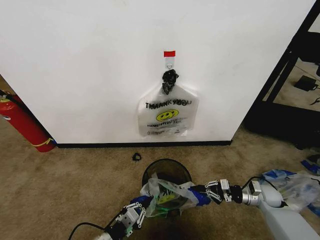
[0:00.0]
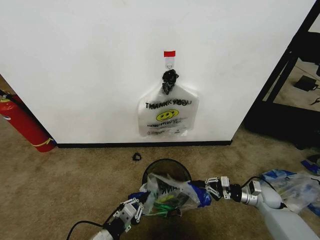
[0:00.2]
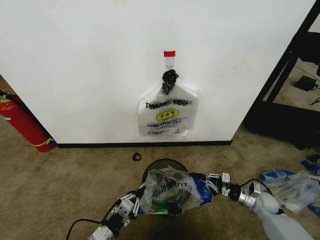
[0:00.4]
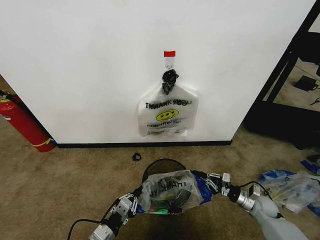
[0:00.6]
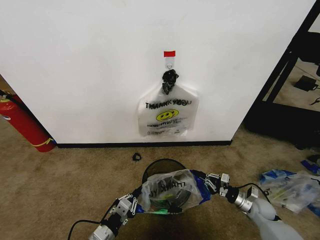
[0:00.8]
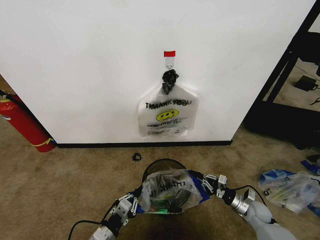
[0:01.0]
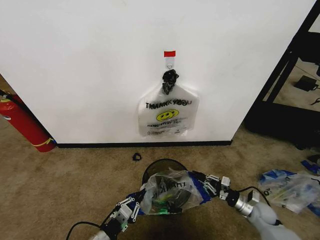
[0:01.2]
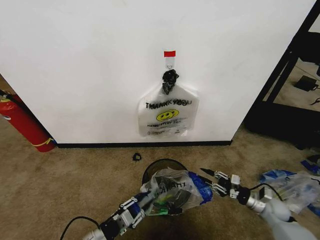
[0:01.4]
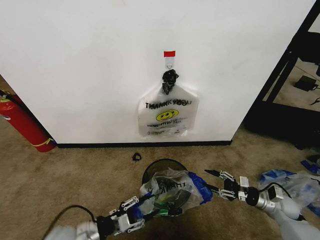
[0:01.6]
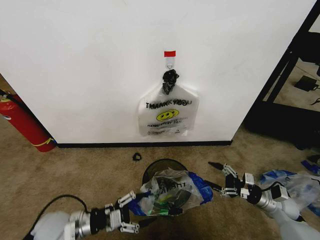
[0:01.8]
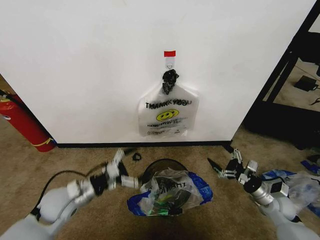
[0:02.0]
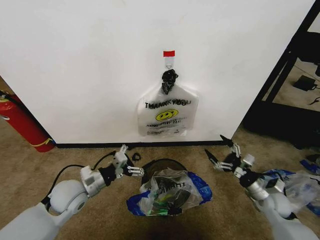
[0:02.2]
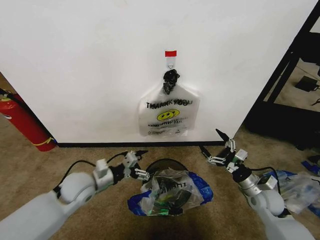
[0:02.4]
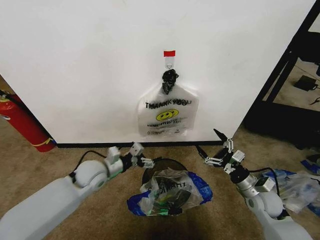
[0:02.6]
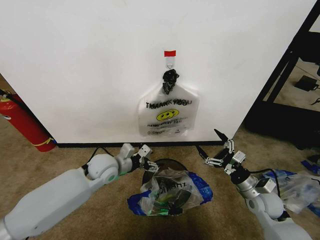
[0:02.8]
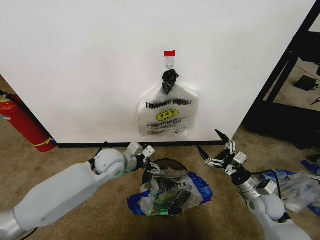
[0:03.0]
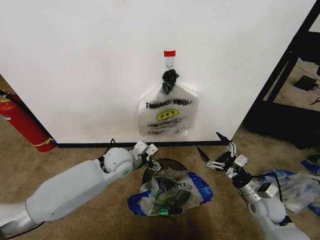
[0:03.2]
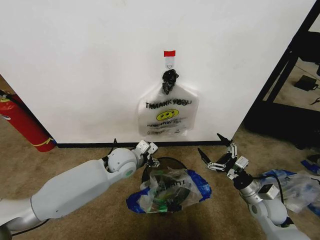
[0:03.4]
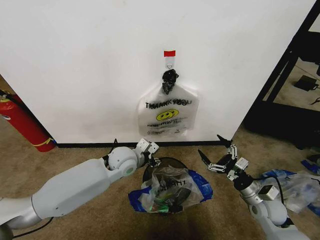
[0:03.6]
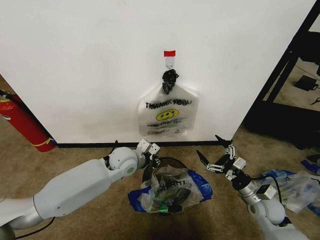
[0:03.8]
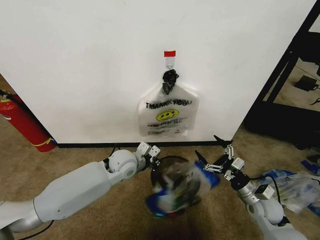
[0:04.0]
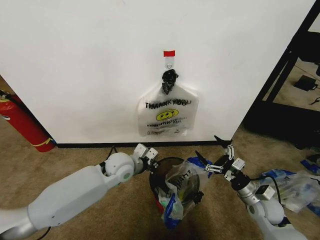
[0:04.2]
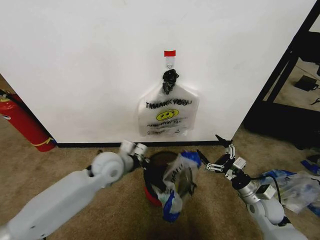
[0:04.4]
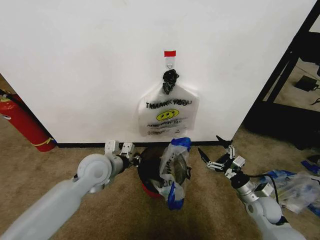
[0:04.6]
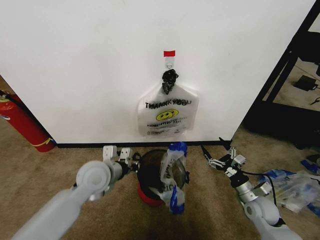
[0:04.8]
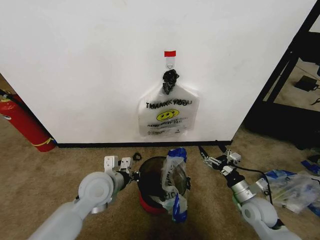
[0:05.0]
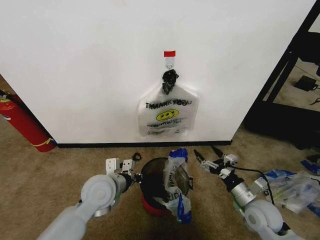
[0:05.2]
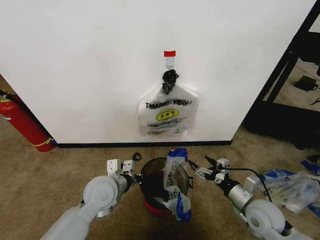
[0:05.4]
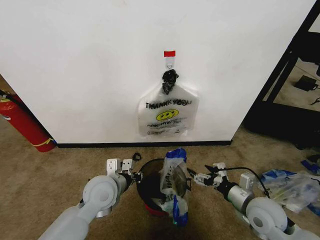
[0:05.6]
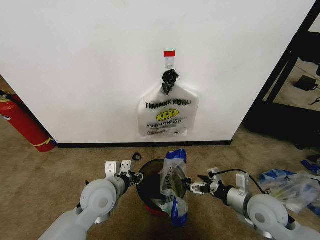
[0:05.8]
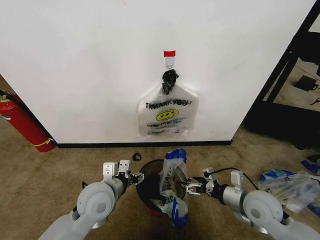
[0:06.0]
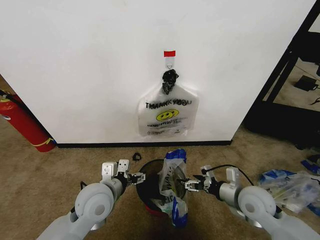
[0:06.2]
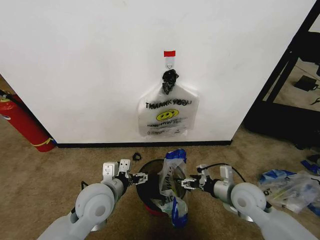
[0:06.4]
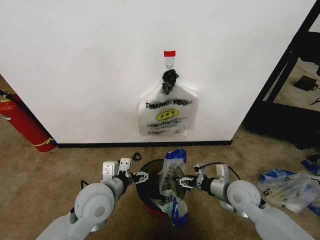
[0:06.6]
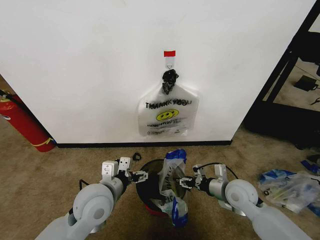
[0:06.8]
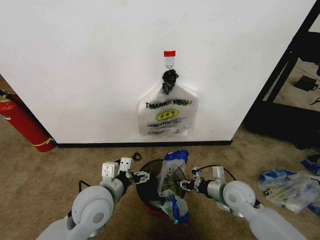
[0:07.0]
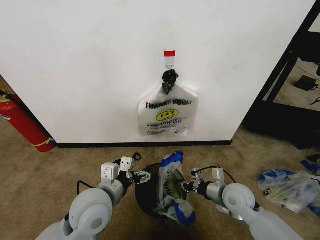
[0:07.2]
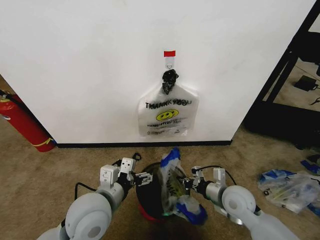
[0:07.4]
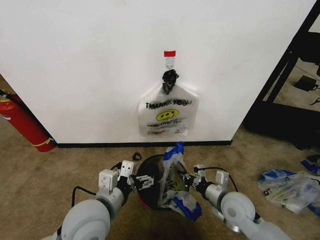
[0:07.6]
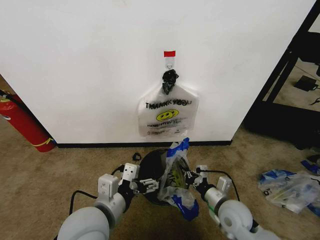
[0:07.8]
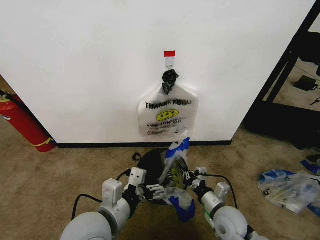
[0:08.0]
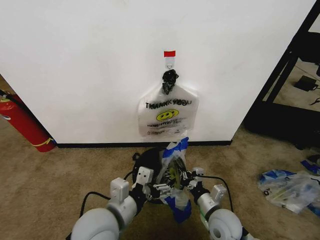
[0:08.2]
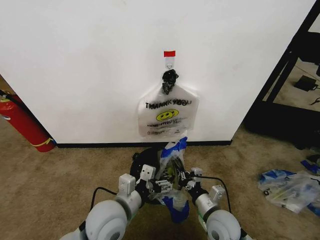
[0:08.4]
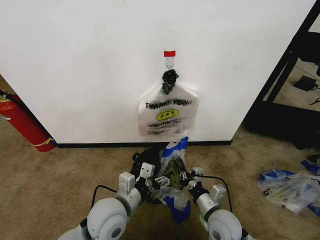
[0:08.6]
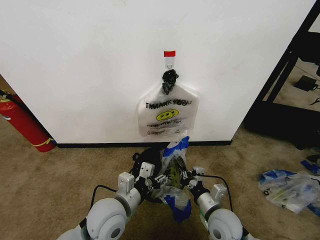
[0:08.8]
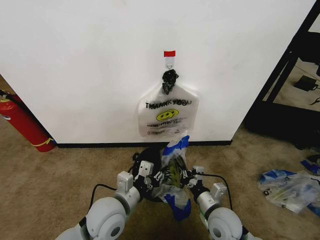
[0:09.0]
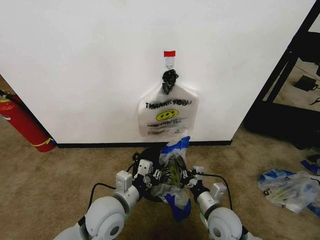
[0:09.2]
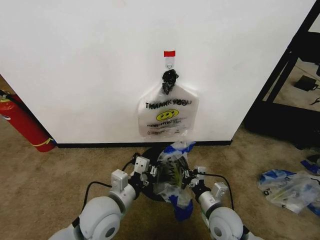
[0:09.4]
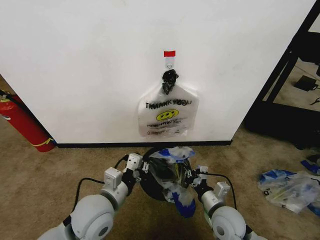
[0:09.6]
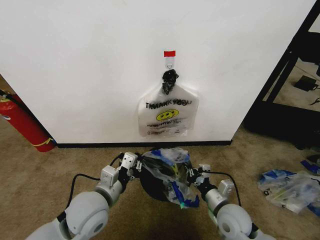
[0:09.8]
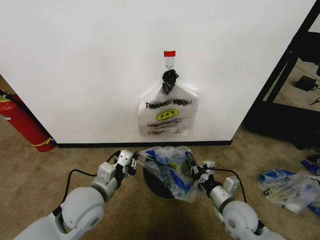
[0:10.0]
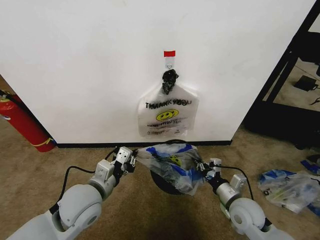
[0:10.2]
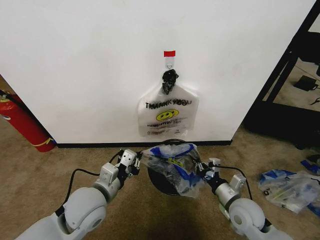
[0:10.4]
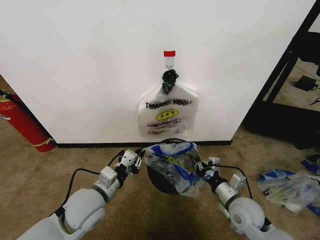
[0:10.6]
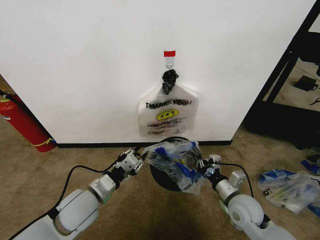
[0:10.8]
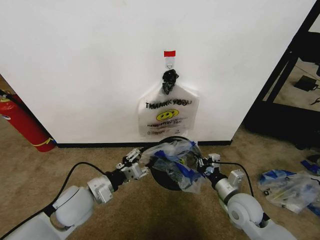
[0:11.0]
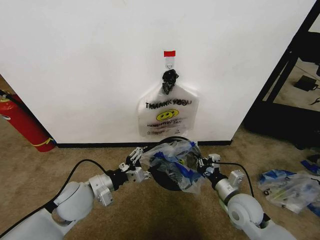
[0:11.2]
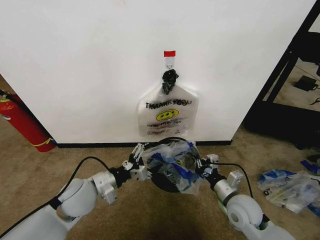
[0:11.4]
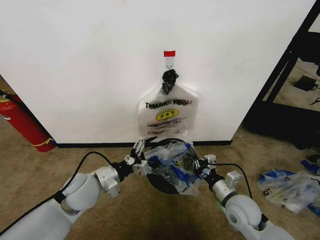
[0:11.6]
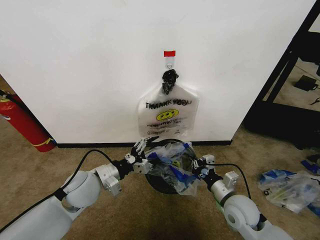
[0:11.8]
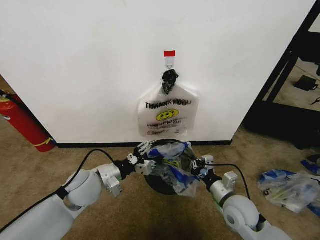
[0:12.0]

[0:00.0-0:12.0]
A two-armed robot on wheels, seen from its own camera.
Task of the whole recording: Pick up the garbage bag from the wall and place it over the trash bin.
0:00.0 to 0:01.6: The left gripper travels to the left and forward by some 10 cm, and opens. The right gripper changes place by about 5 cm, and opens.
0:01.6 to 0:03.0: The right gripper is displaced to the left and upward by some 15 cm, and opens its fingers. Meanwhile the left gripper moves forward, to the right and upward, some 25 cm, and opens.
0:03.0 to 0:04.4: The left gripper closes.
0:04.4 to 0:06.0: The left gripper heads backward, covering some 10 cm, and opens, while the right gripper is displaced upward and to the left by some 10 cm.
0:06.0 to 0:07.6: The left gripper shifts some 5 cm backward. The right gripper moves to the left, about 5 cm, and closes up.
0:07.6 to 0:09.0: The left gripper shifts approximately 5 cm downward, and closes, while the right gripper changes place by roughly 5 cm.
0:09.0 to 0:10.4: The right gripper is displaced to the right by about 5 cm; the left gripper travels to the left by some 5 cm.
0:10.4 to 0:12.0: The left gripper is displaced forward by about 5 cm, and opens up.

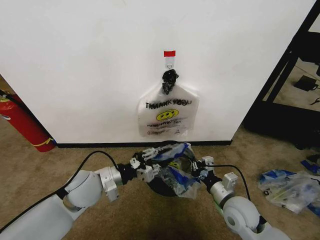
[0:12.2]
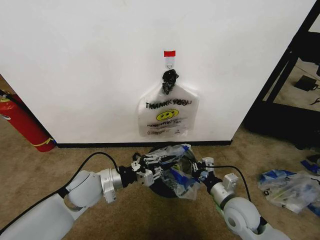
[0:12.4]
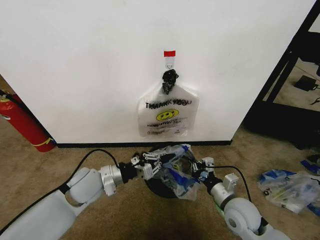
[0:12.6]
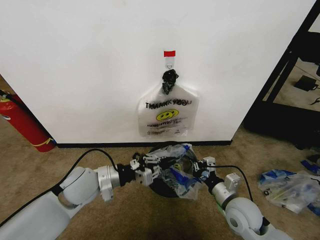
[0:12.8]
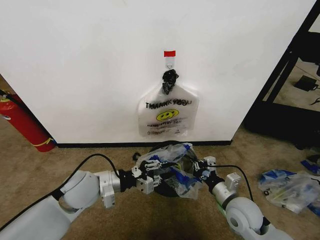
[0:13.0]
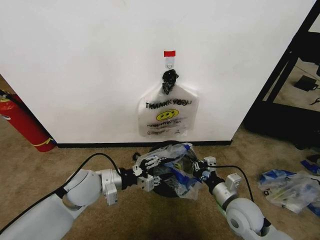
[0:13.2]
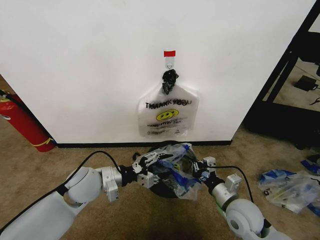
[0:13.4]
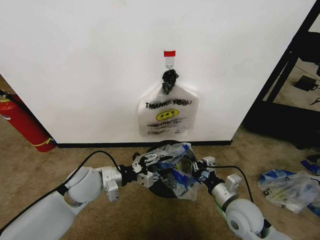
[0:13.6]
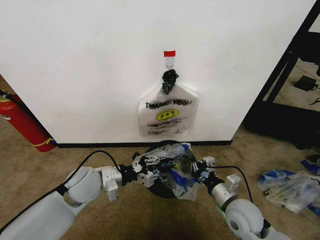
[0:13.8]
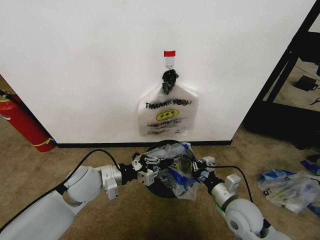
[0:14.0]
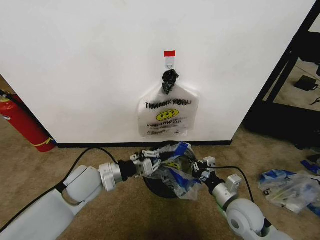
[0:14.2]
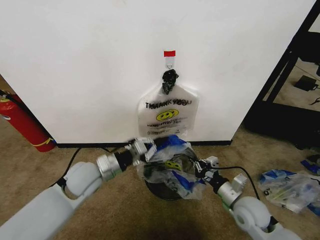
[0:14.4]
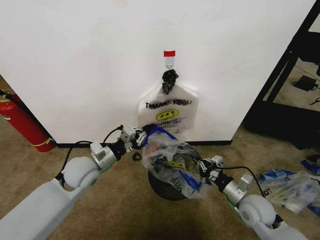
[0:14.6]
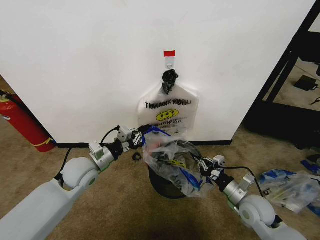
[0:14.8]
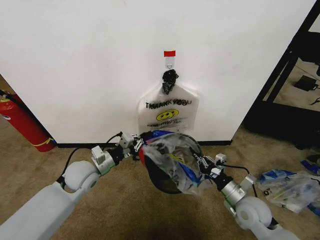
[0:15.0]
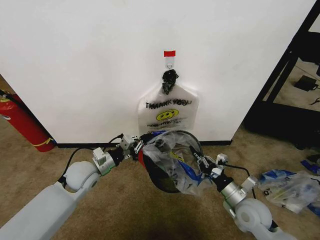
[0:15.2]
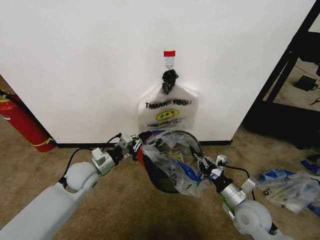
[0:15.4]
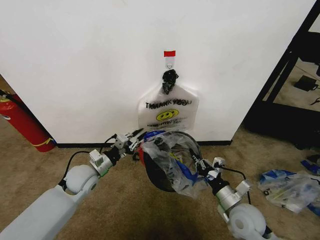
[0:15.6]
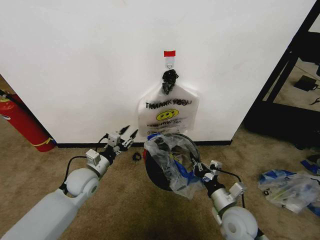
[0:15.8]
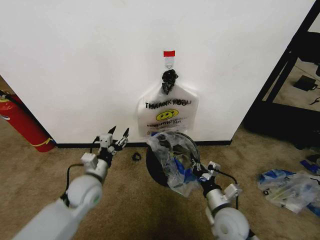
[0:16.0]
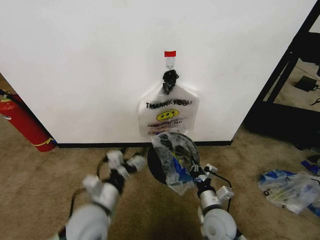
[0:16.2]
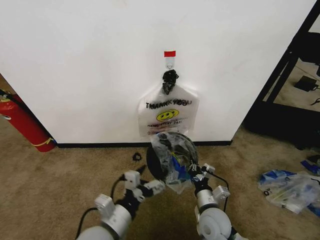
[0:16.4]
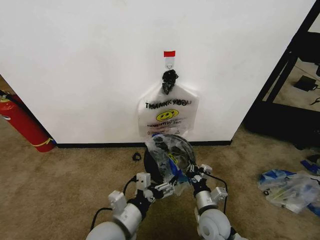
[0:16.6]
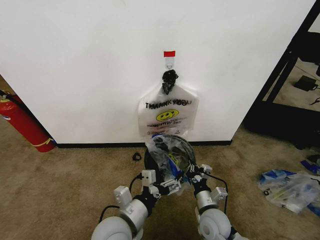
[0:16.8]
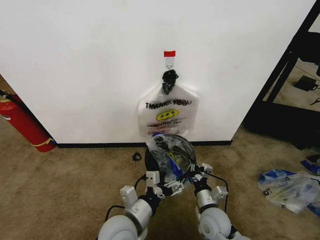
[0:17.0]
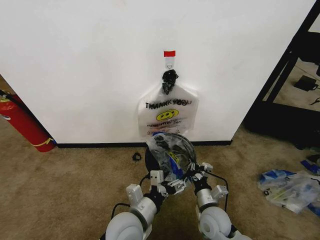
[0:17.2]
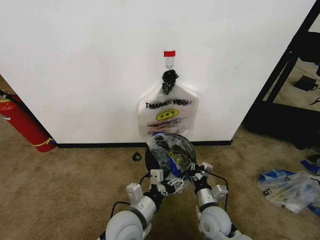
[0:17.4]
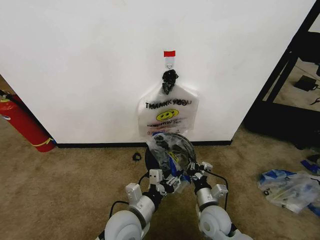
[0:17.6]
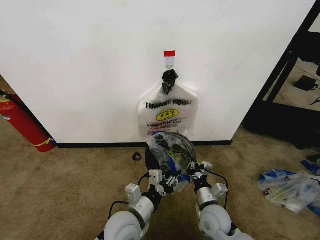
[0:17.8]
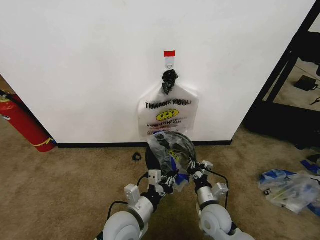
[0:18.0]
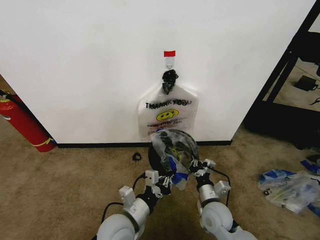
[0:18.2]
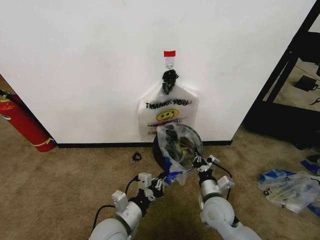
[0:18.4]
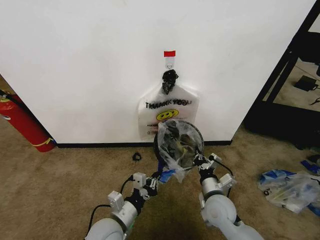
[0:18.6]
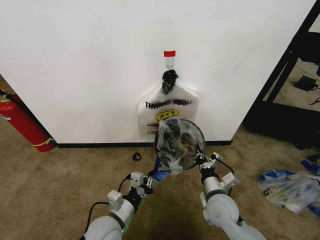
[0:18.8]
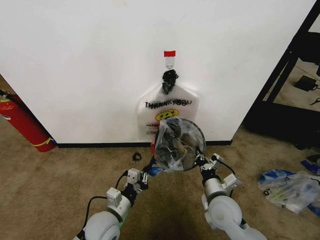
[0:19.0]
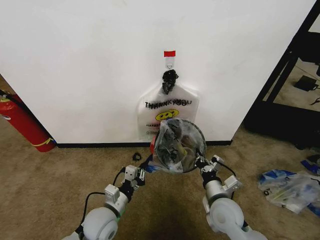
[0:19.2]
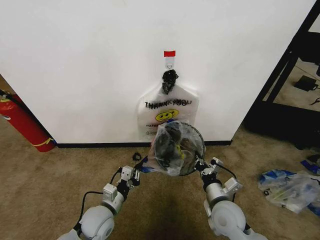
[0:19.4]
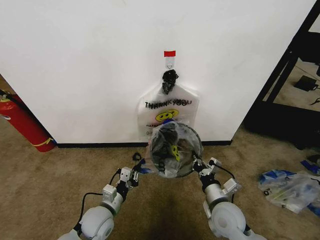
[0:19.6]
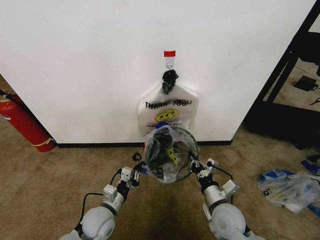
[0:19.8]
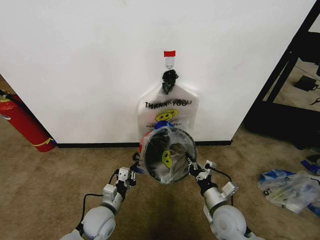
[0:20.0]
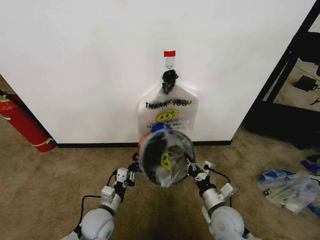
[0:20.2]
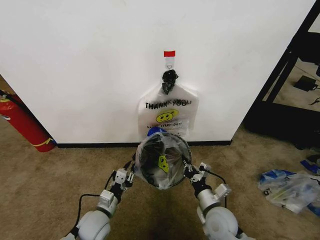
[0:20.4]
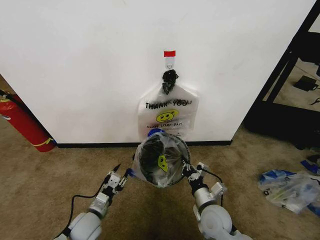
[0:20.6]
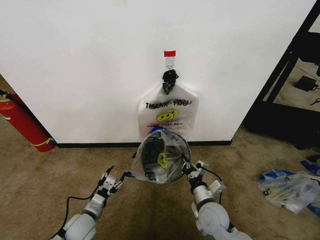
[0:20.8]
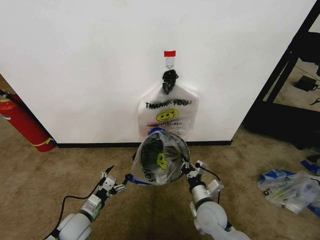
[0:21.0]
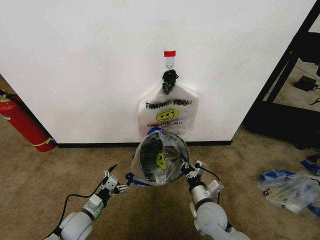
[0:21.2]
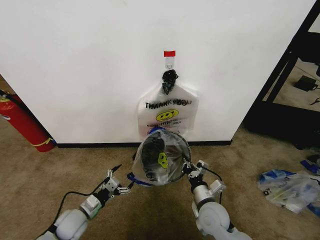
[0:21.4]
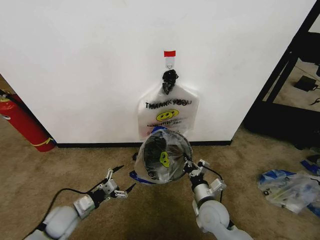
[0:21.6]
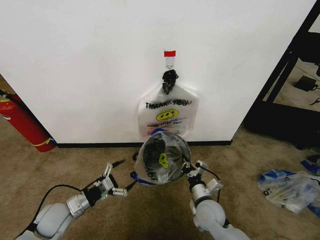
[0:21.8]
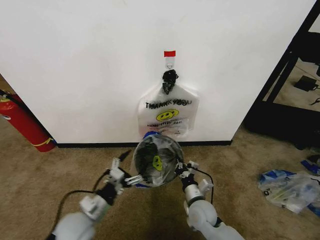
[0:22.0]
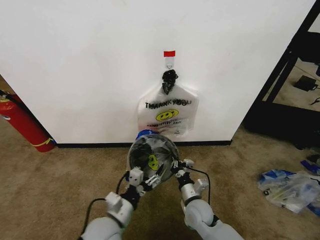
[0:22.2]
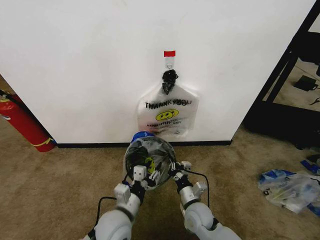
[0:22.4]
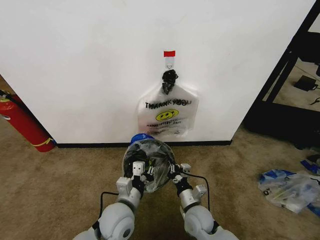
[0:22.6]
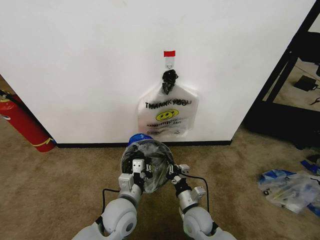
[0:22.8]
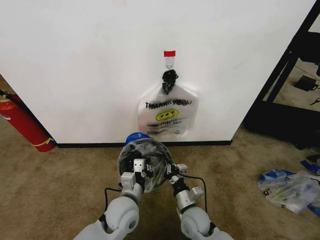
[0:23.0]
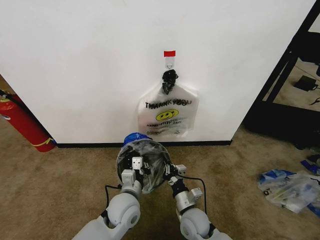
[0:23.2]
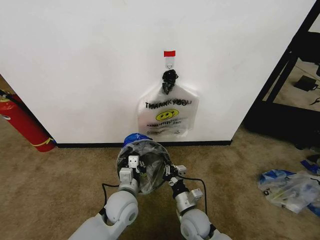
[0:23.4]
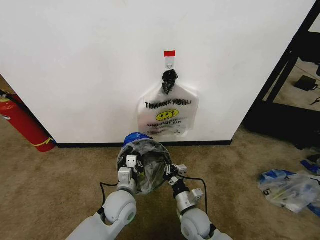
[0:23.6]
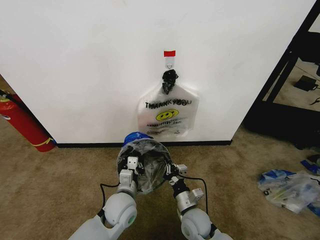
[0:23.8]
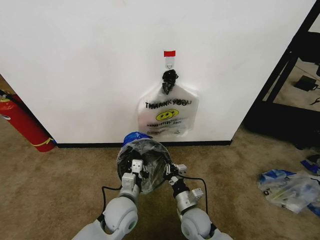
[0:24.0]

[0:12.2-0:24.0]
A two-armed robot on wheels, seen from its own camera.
Task of the whole recording: Pick up the garbage bag from the wall and place it over the trash bin.
0:12.2 to 0:13.6: The grippers move only a little.
0:13.6 to 0:15.2: The right gripper ends up about 5 cm from where it was, while the left gripper shifts by about 5 cm, and closes its fingers.
0:15.2 to 0:16.6: The right gripper shifts some 10 cm to the left, while the left gripper shifts approximately 25 cm backward and to the right, and opens.
0:16.6 to 0:18.2: The left gripper closes.
0:18.2 to 0:19.6: The left gripper shifts some 15 cm to the left, downward and forward. Meanwhile the right gripper moves some 5 cm.
0:19.6 to 0:21.0: The right gripper shifts by some 5 cm. Meanwhile the left gripper goes roughly 10 cm to the left, and opens its fingers.
0:21.0 to 0:22.6: The left gripper travels to the right and upward by approximately 20 cm, and closes its fingers, while the right gripper changes place by approximately 5 cm.
0:22.6 to 0:24.0: The grippers make only small movements.
